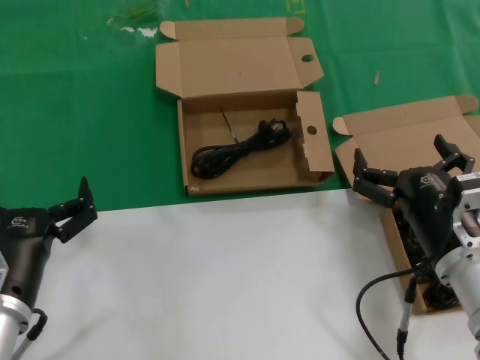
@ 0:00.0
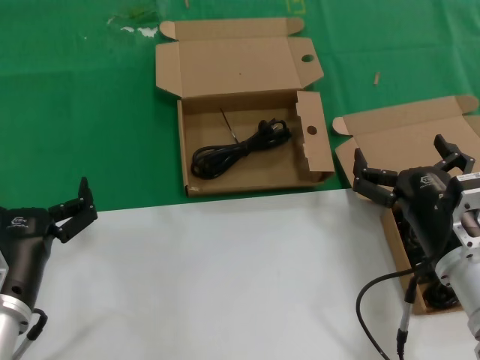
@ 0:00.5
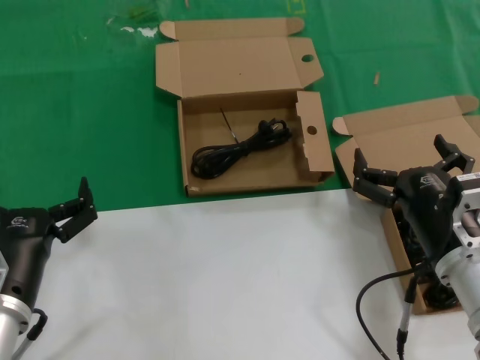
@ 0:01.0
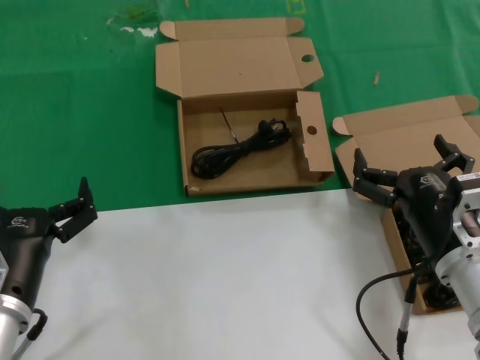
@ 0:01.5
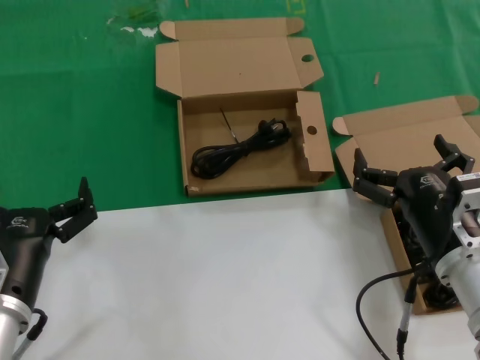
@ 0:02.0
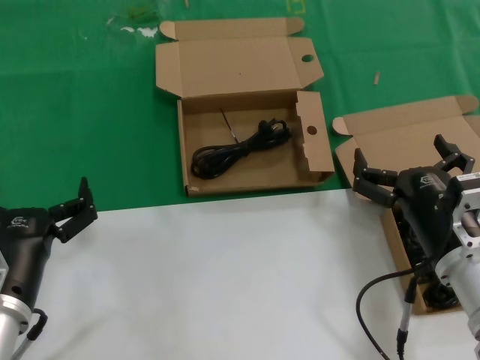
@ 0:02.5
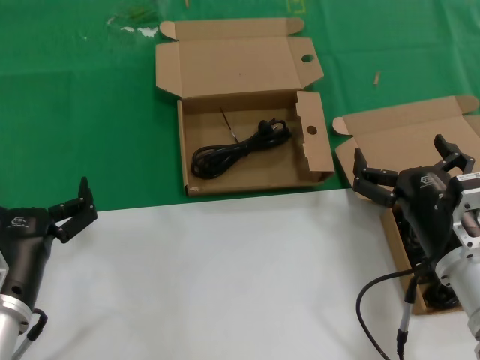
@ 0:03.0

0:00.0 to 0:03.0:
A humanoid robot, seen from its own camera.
Task of the whole recording: take the parts from the box containing them and put them into an empty box.
0:00.0 to 0:03.0: Both hands stay put.
